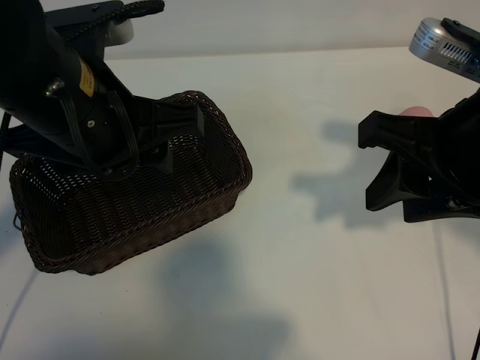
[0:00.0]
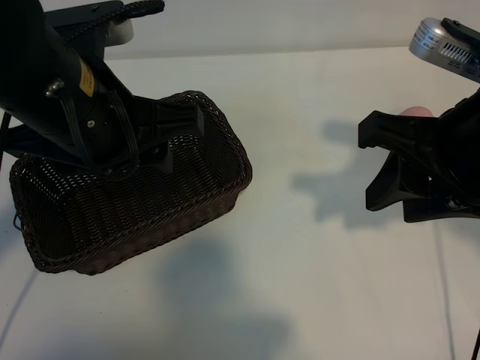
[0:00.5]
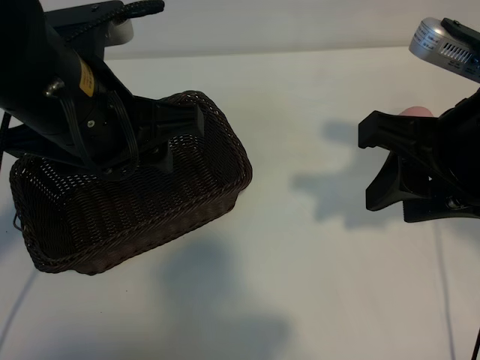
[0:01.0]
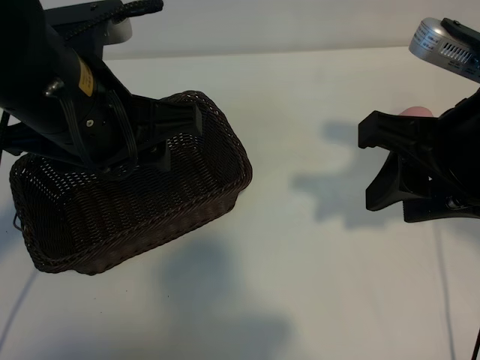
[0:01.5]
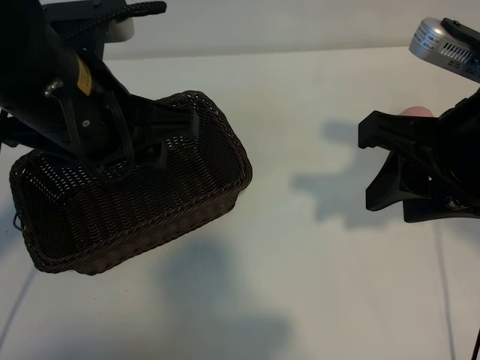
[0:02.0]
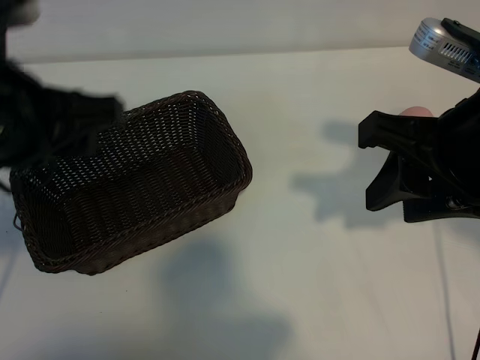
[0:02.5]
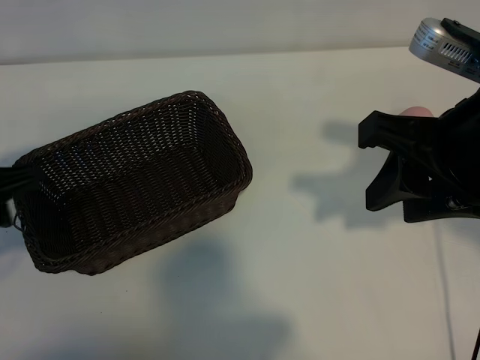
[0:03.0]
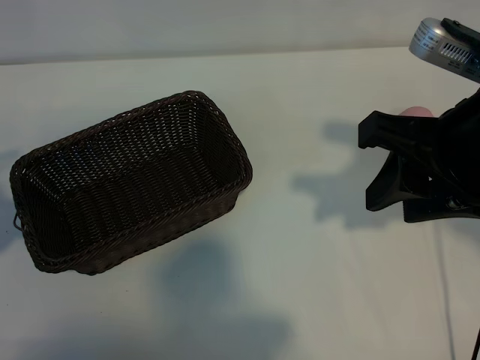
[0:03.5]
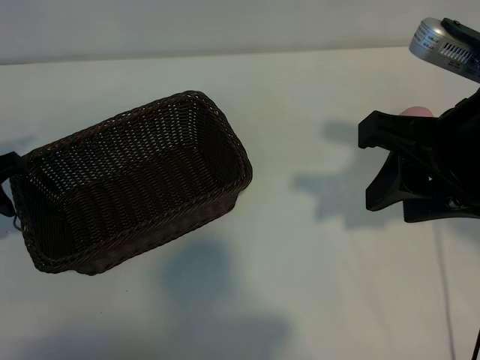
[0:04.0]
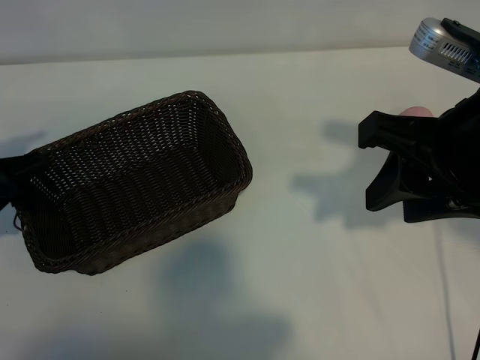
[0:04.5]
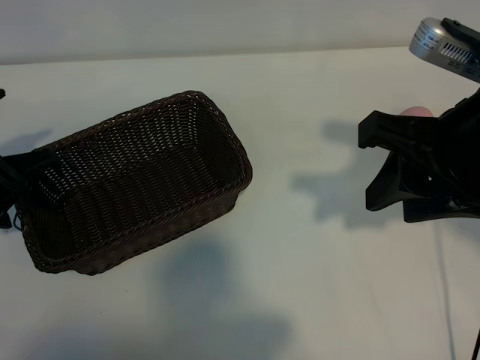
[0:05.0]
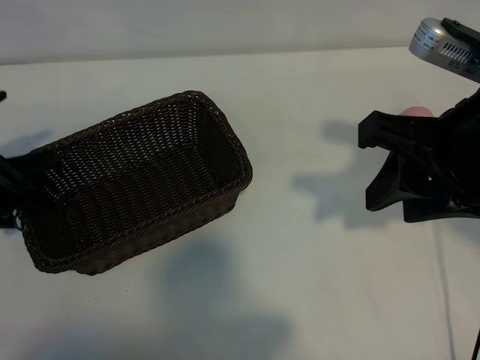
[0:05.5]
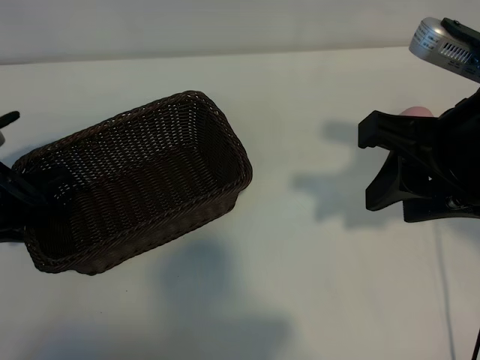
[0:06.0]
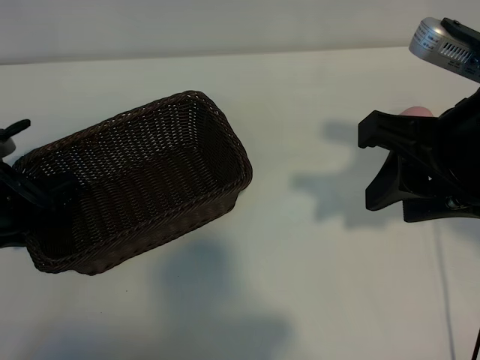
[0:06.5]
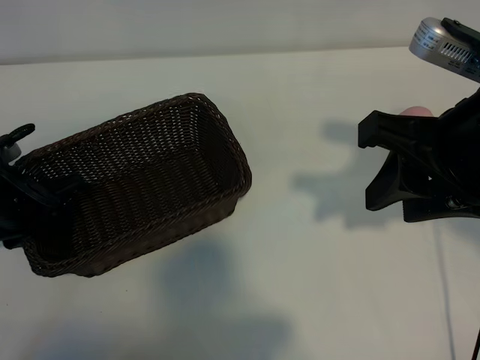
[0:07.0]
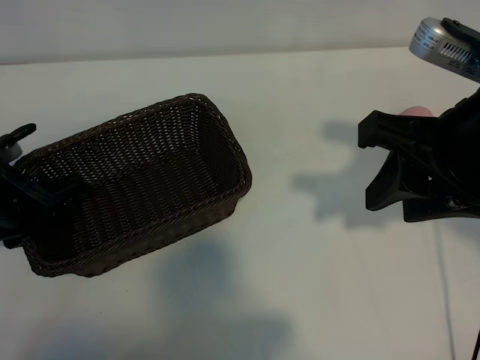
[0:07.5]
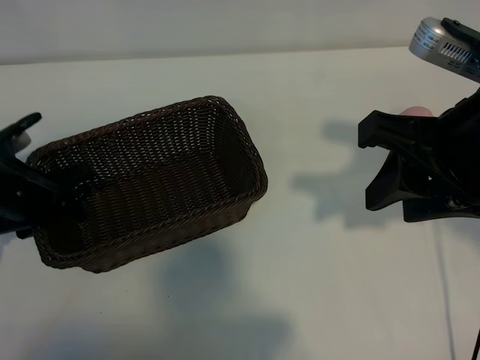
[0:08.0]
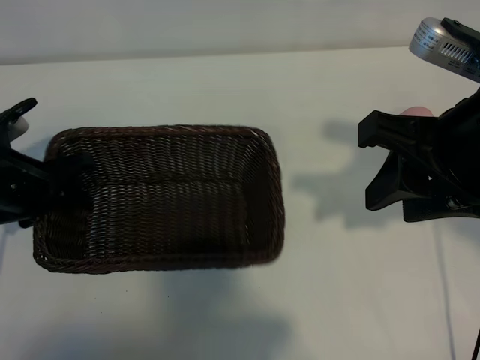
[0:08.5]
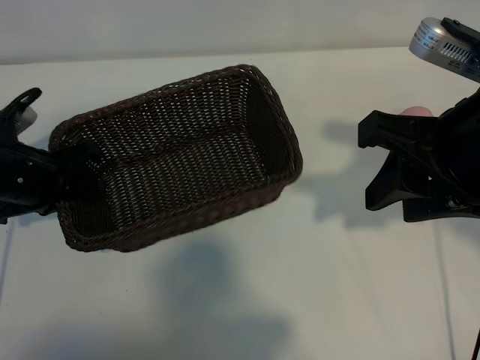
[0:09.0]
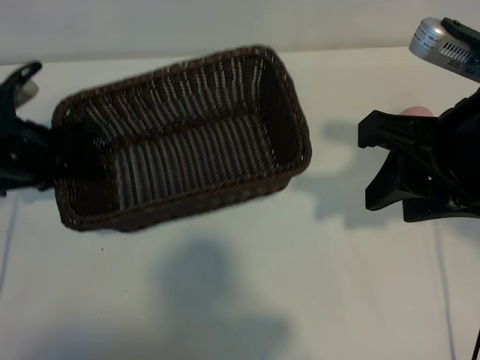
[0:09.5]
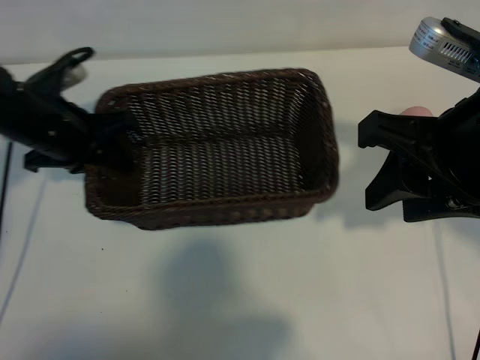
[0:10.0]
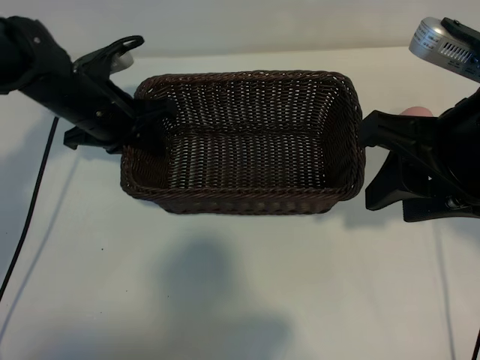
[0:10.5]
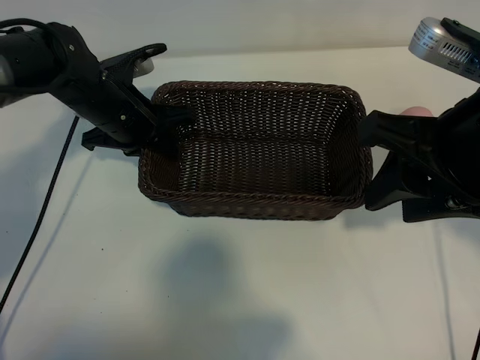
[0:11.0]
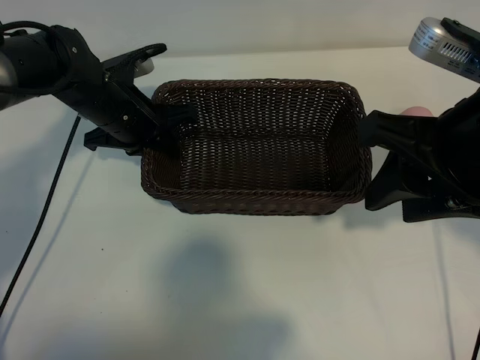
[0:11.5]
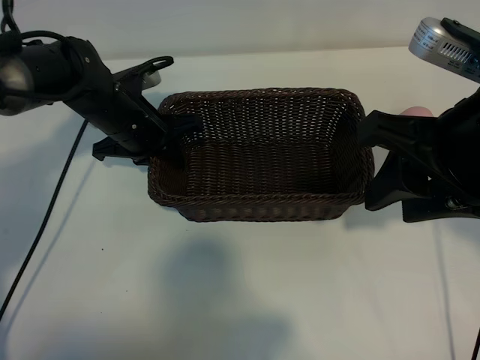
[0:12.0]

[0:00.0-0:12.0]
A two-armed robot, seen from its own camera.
Task of the whole recording: pick up the peach and put it into the basket.
Step, 0:02.0 to 0:07.0: Grasp the basket with left gripper.

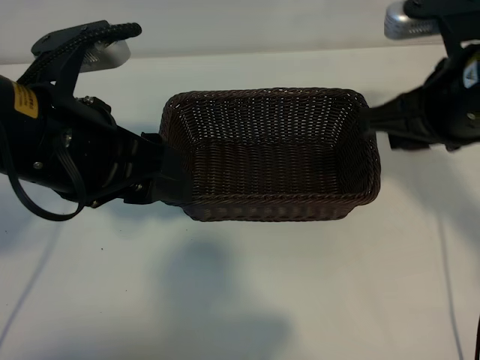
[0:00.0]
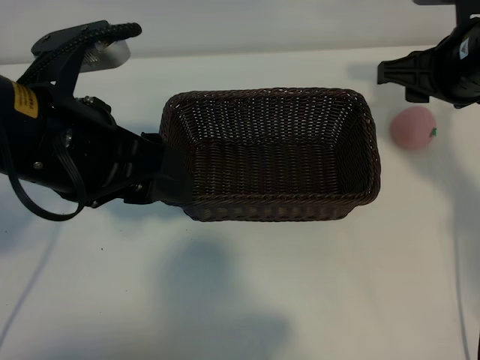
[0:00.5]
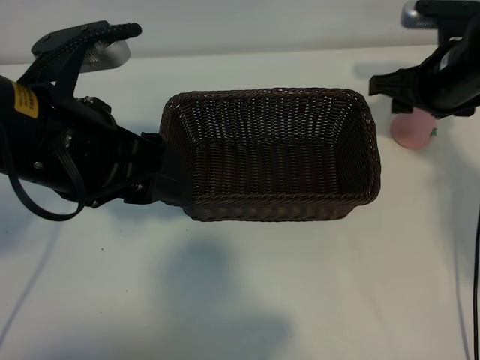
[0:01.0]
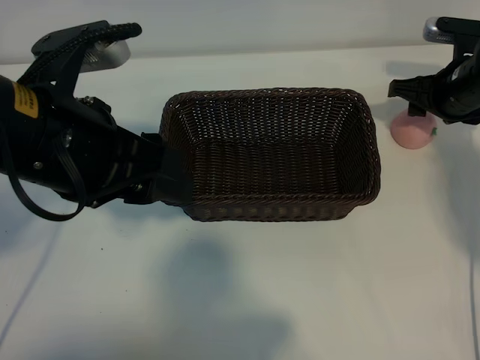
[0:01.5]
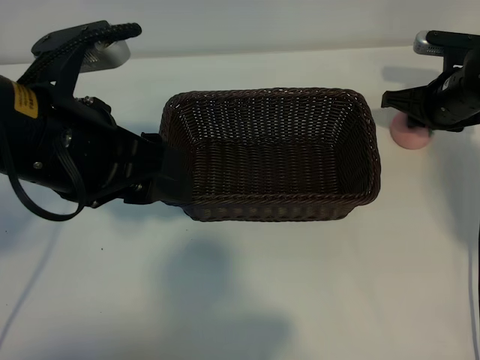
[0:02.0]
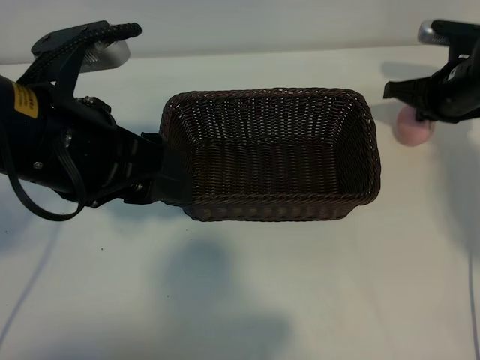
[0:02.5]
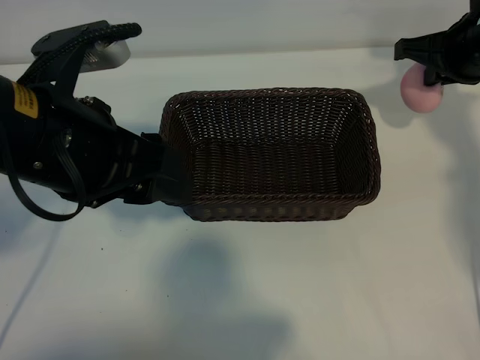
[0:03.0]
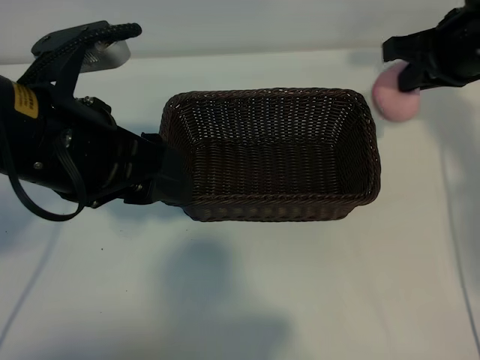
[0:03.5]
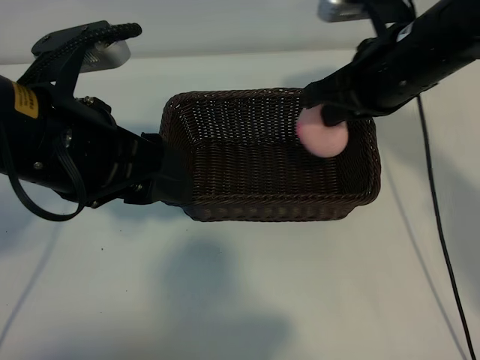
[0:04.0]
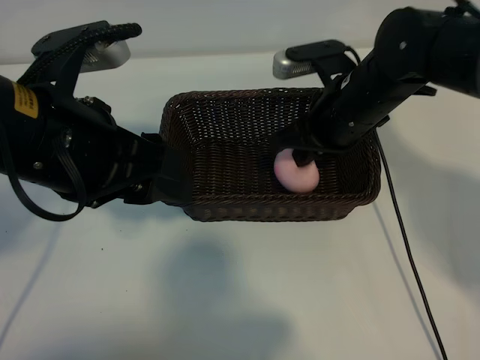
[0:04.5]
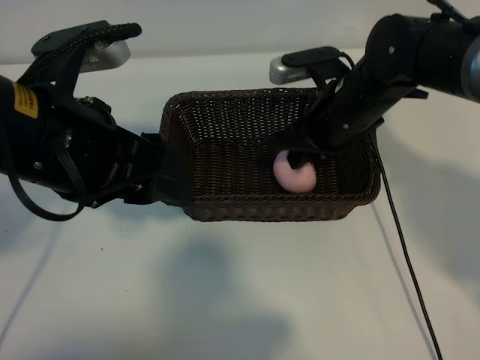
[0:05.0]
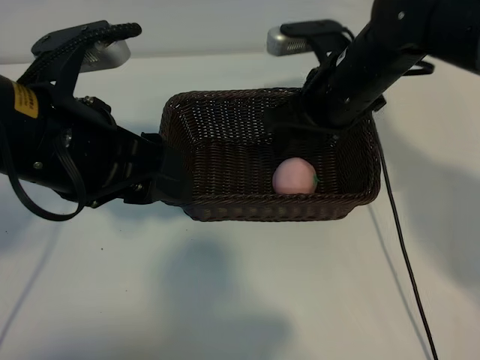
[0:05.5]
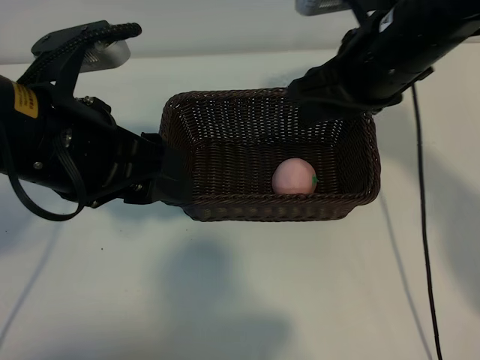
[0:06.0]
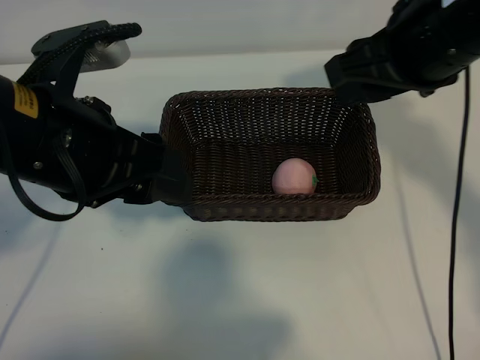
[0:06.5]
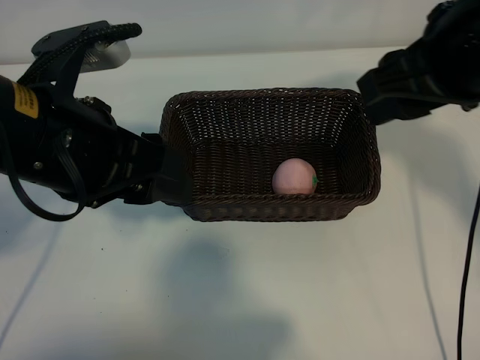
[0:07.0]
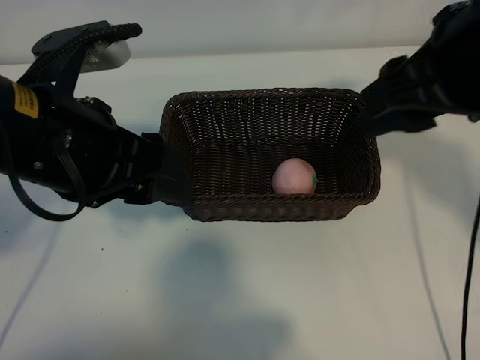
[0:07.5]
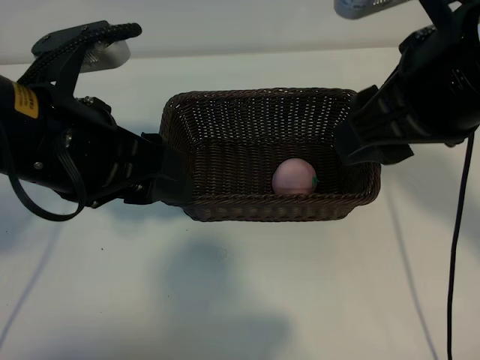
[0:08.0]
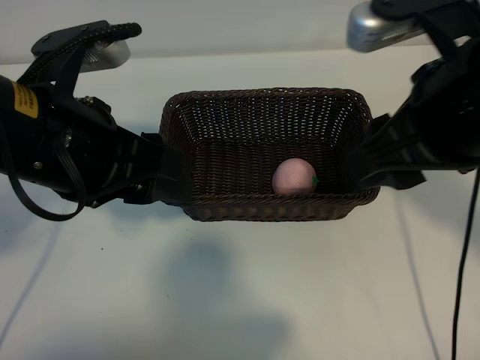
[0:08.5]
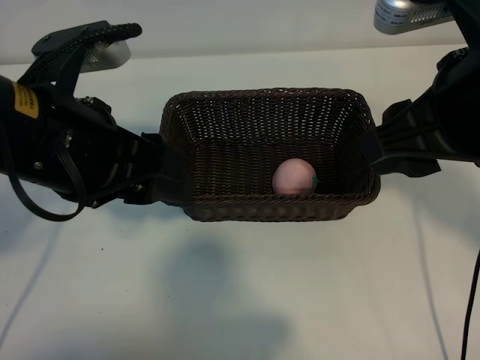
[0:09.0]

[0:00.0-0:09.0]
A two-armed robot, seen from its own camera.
Task of the whole recording: pick up the peach and put it into the basket.
Step, 0:00.0 to 0:02.0: Grasp the peach with right gripper.
Step, 0:02.5 to 0:05.0: Place the peach in the basket with right gripper.

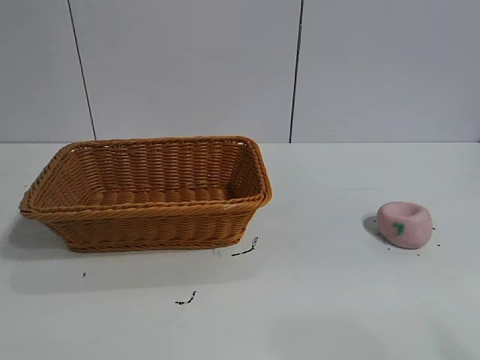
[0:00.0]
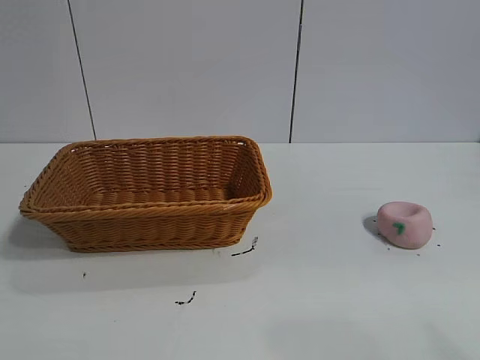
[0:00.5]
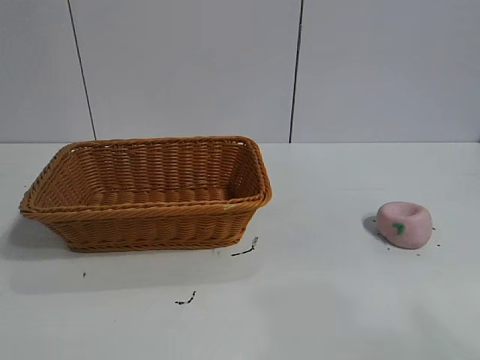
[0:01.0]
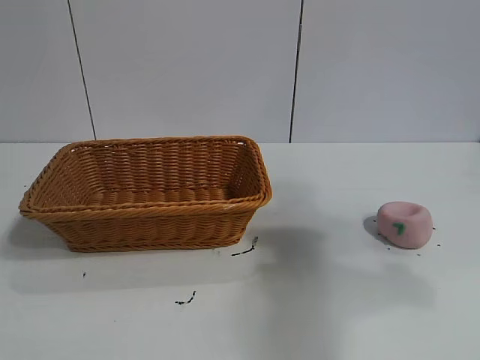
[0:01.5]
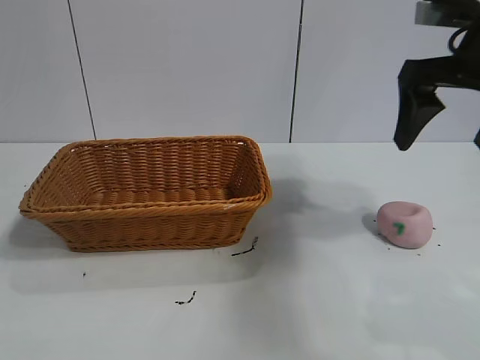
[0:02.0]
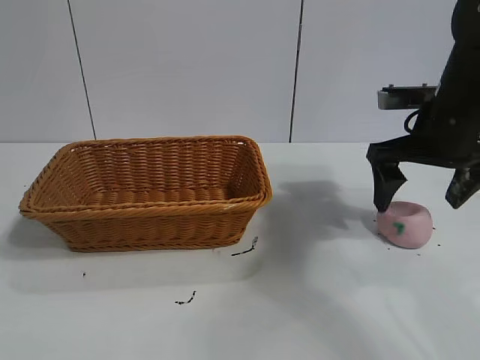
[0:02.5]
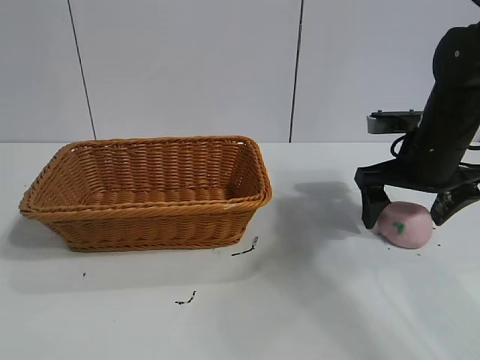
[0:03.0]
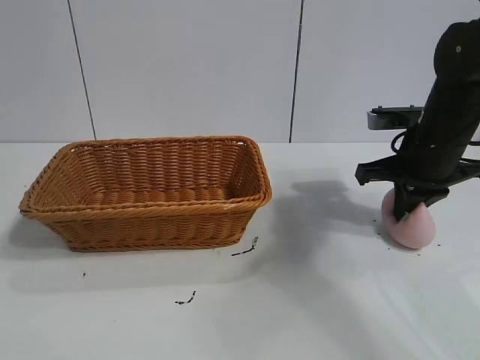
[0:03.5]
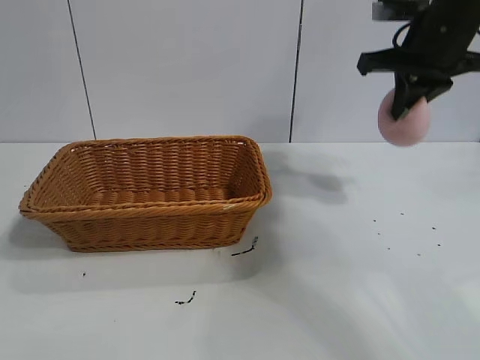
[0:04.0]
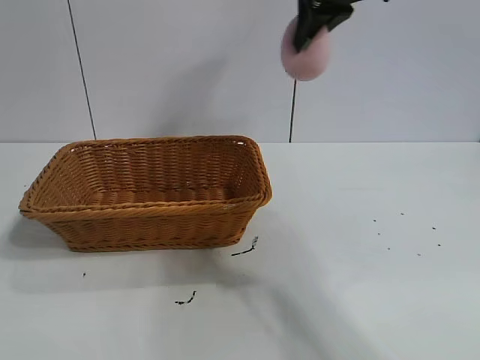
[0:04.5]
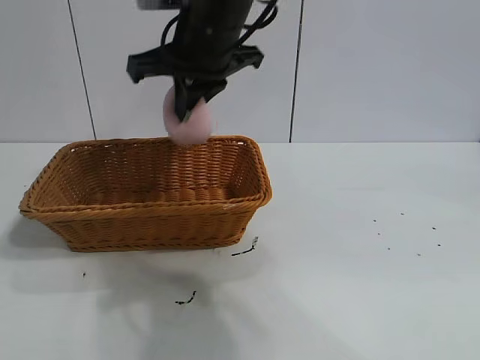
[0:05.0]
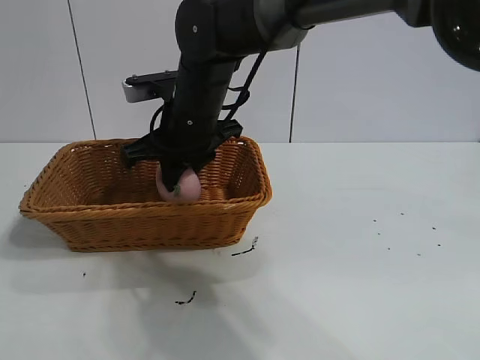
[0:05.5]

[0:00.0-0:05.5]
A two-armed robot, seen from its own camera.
Task of the whole recording: pick up the peach and put it into the basket.
Step, 0:00.0 to 0:03.5: Grasp the peach with right gripper.
